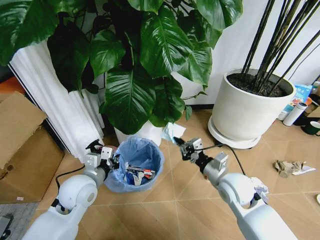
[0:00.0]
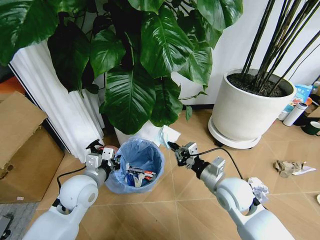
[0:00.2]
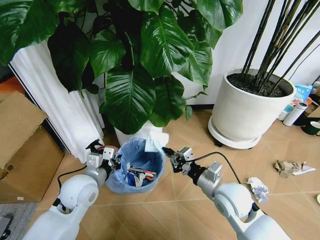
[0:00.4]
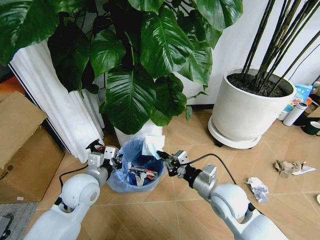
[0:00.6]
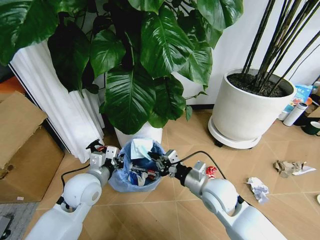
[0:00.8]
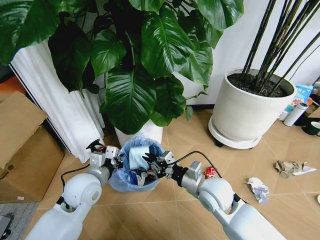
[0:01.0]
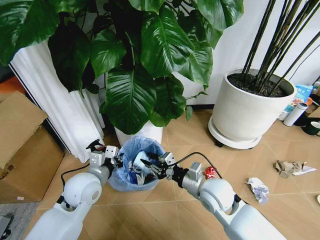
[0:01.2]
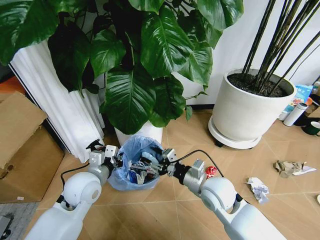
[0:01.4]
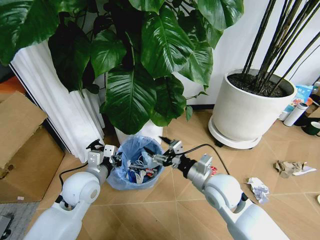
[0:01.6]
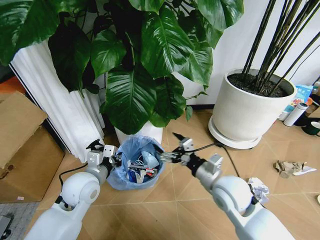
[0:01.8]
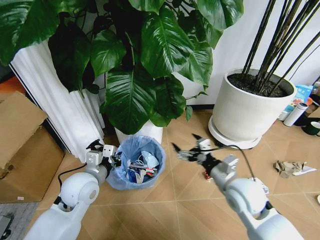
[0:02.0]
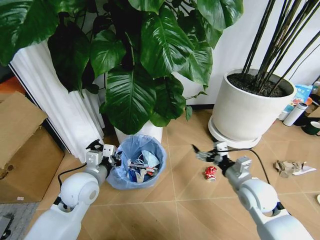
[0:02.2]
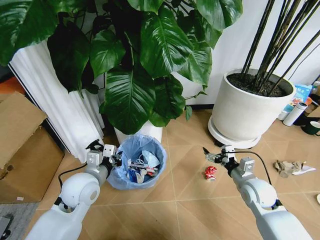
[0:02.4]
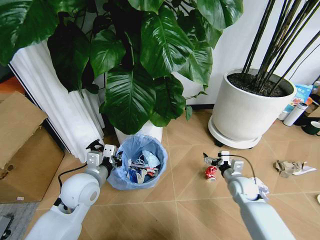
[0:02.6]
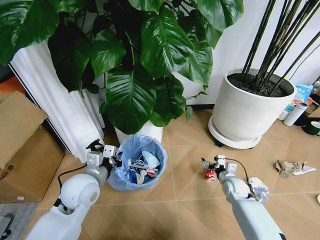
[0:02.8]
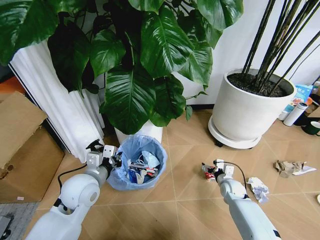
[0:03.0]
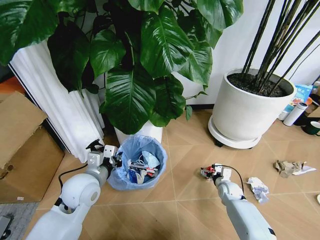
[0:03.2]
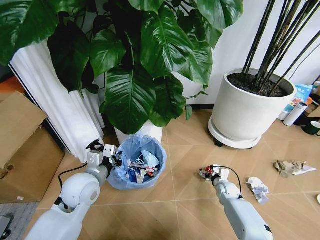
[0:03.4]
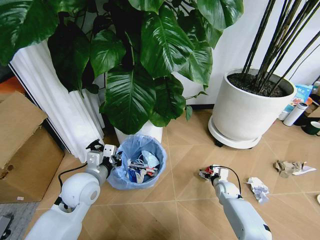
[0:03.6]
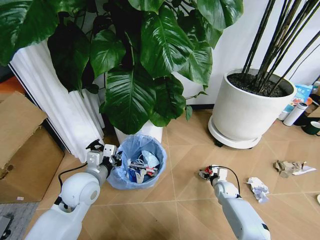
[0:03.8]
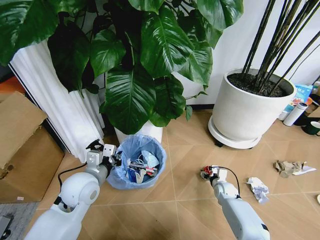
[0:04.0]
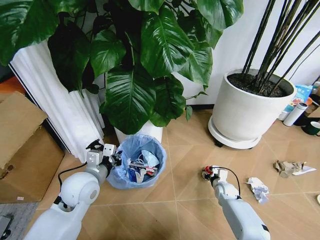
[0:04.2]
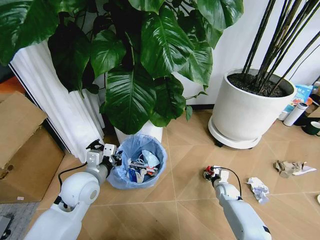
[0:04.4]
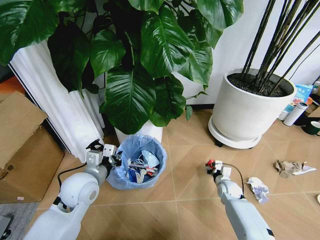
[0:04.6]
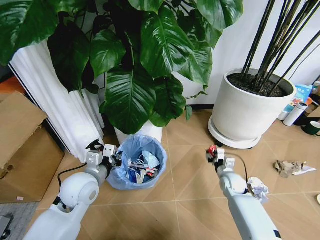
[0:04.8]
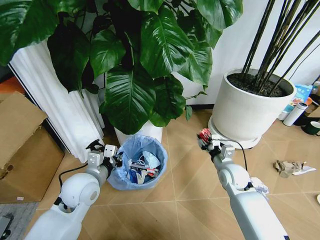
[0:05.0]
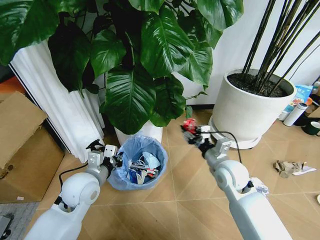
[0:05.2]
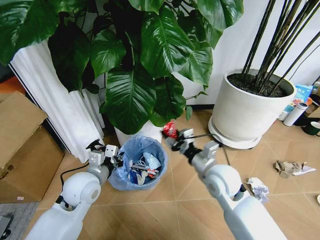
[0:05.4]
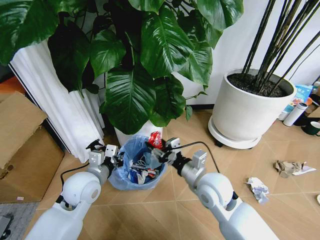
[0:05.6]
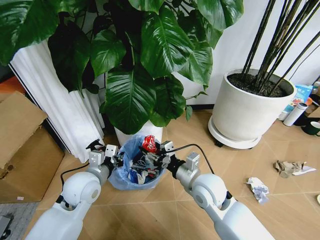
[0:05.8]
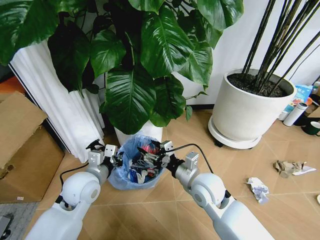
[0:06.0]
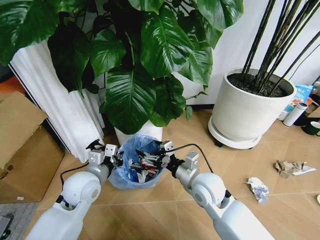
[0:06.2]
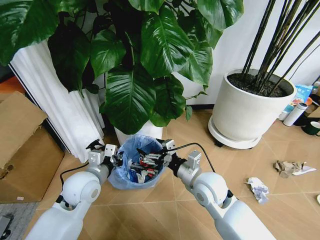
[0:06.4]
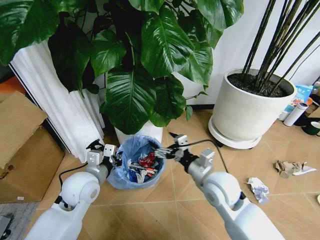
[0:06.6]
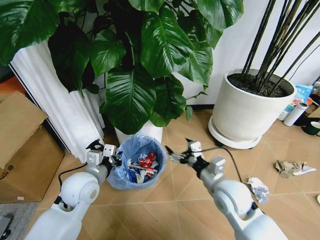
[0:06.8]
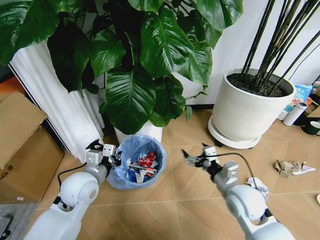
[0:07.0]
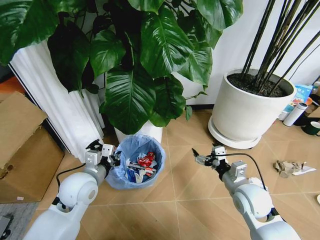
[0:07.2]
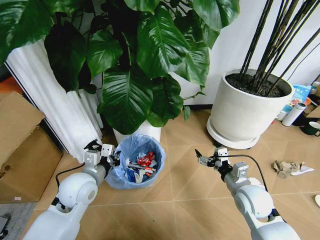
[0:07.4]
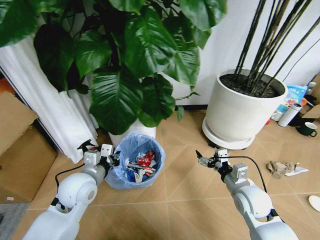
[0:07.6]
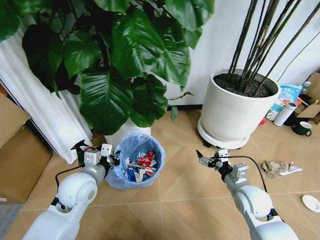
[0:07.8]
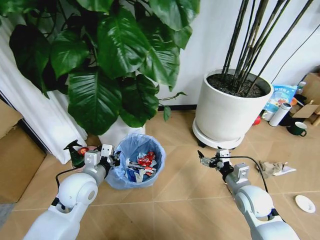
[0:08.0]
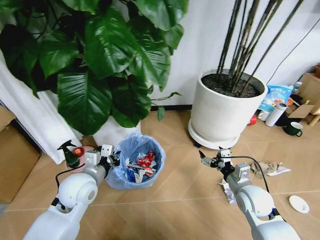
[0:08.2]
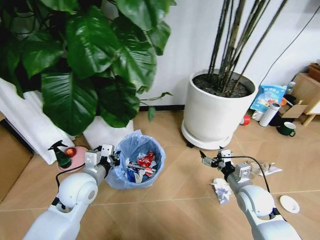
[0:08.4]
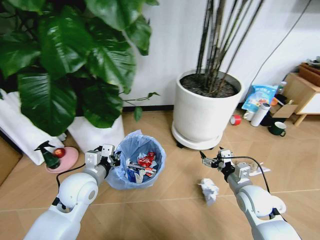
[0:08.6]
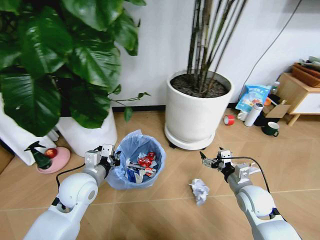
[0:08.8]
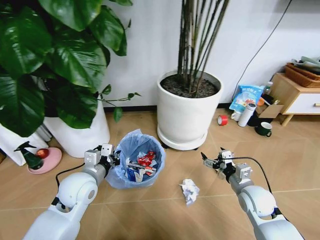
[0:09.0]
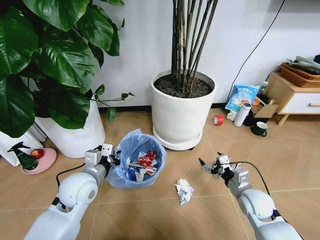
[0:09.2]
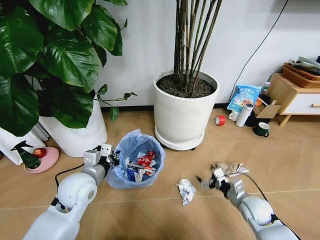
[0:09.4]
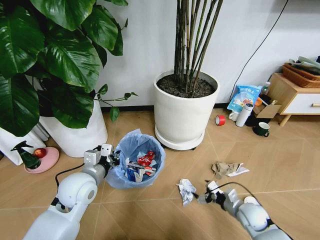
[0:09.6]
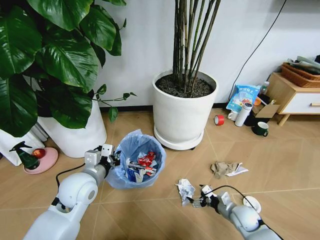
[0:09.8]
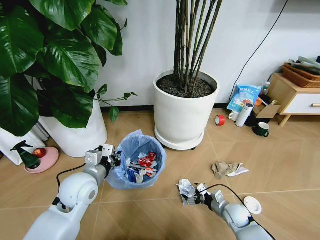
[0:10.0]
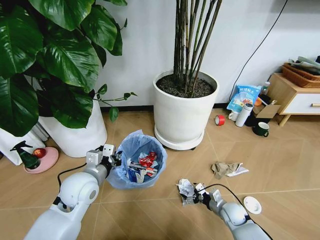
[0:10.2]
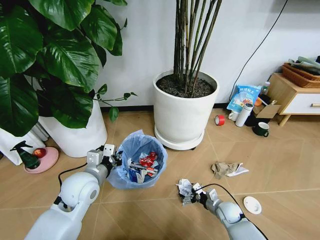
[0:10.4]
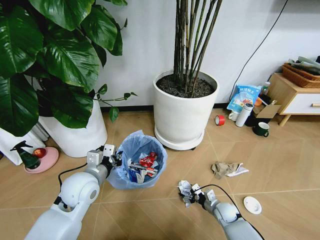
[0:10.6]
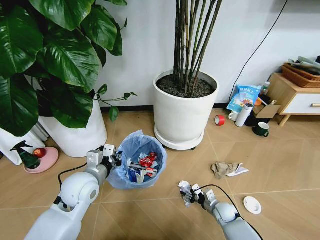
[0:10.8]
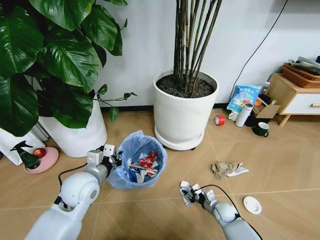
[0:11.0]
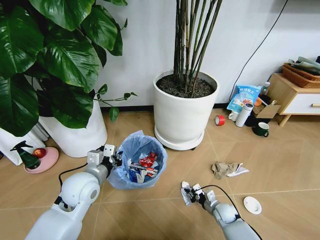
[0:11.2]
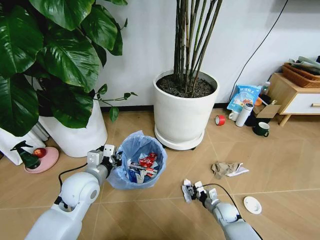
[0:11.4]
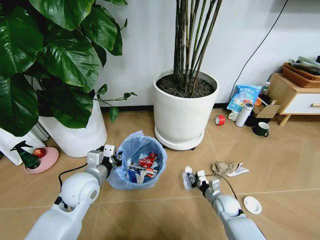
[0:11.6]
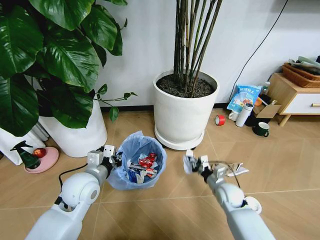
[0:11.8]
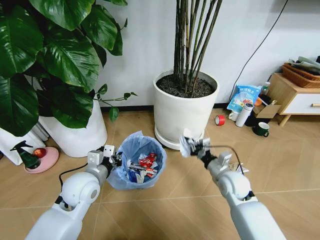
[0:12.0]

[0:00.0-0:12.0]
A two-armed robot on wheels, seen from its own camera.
Task of the whole recording: Pick up the trash bin and place the garbage on the floor into it.
0:00.0 to 0:01.6: The right gripper moves to the left, about 5 cm, and opens.
0:01.6 to 0:03.0: The right gripper is displaced downward and to the right by approximately 30 cm.
0:03.0 to 0:04.4: The right gripper closes its fingers.
0:04.4 to 0:06.0: The right gripper travels upward and to the left by roughly 30 cm.
0:06.0 to 0:07.6: The right gripper goes roughly 15 cm to the right.
0:09.0 to 0:10.4: The right gripper shifts approximately 20 cm downward.
0:10.4 to 0:12.0: The right gripper shifts some 20 cm upward, and closes.

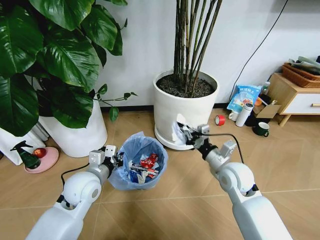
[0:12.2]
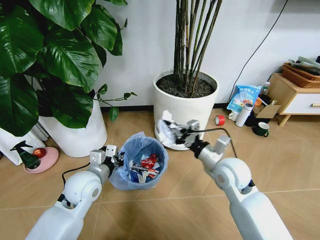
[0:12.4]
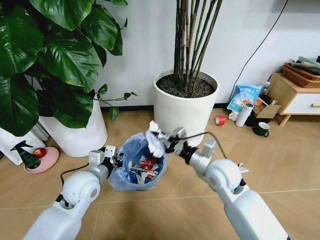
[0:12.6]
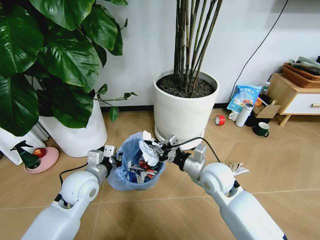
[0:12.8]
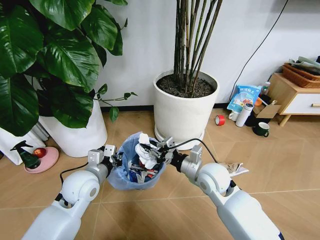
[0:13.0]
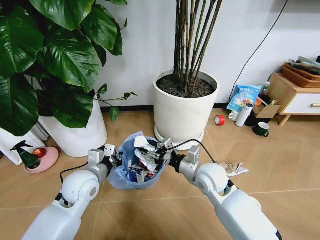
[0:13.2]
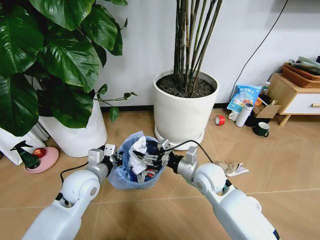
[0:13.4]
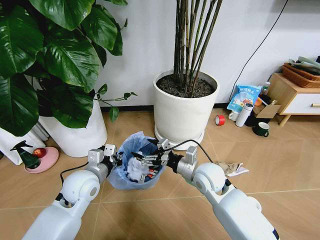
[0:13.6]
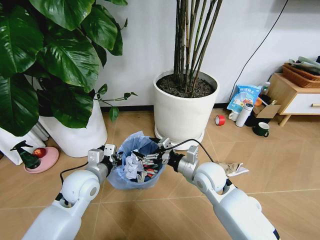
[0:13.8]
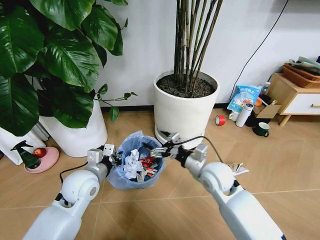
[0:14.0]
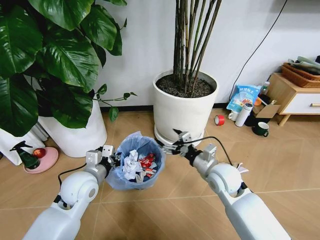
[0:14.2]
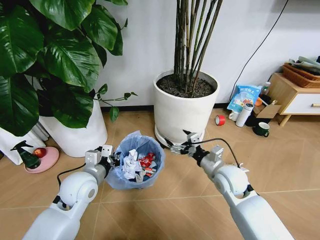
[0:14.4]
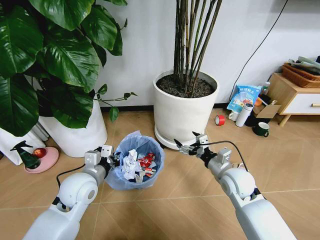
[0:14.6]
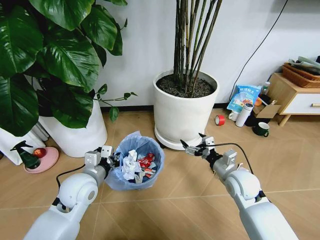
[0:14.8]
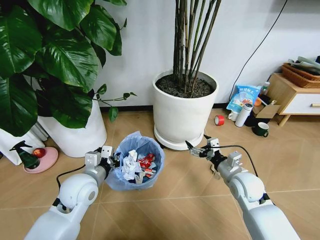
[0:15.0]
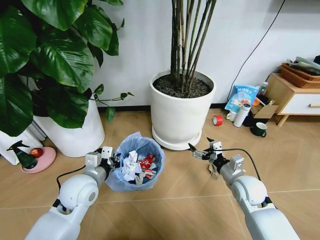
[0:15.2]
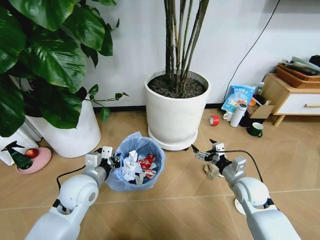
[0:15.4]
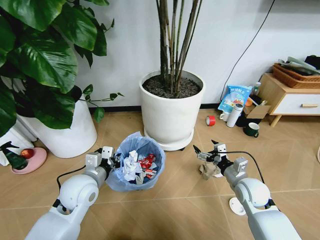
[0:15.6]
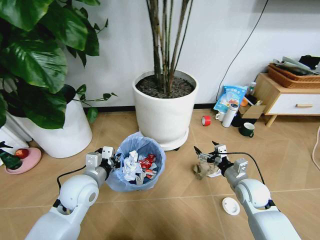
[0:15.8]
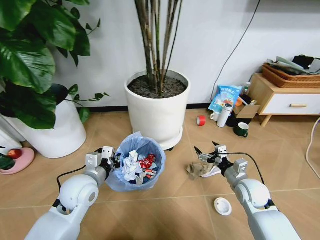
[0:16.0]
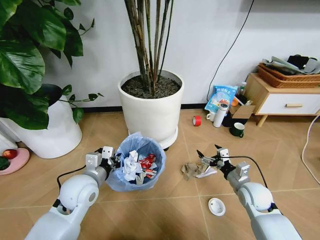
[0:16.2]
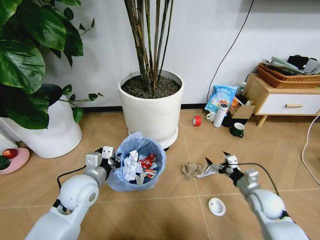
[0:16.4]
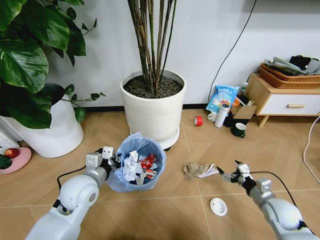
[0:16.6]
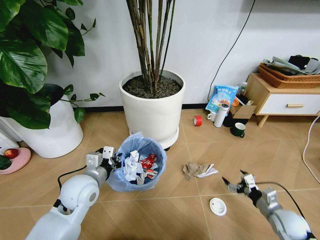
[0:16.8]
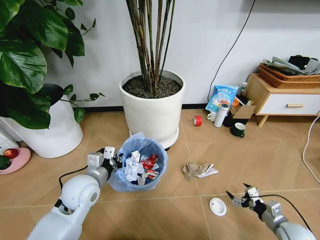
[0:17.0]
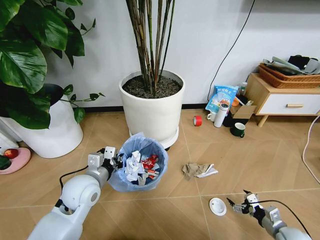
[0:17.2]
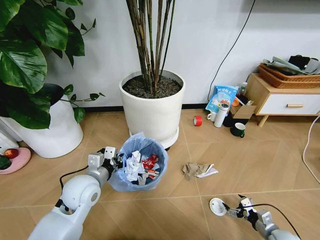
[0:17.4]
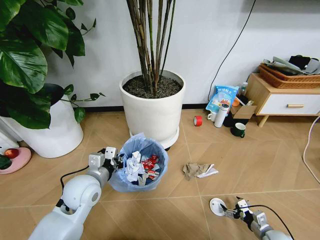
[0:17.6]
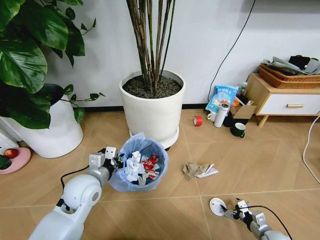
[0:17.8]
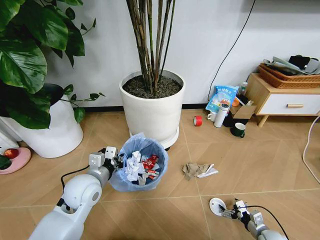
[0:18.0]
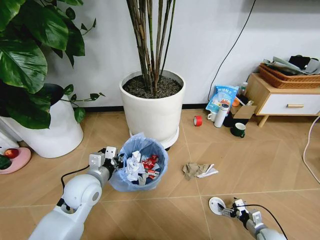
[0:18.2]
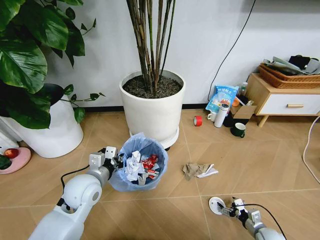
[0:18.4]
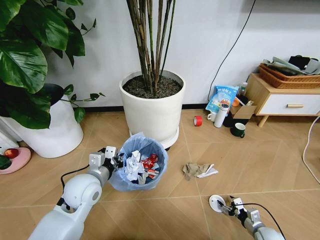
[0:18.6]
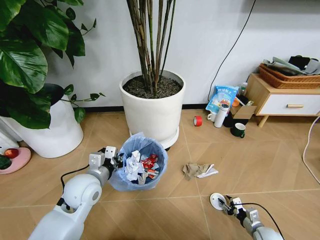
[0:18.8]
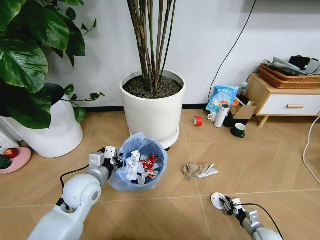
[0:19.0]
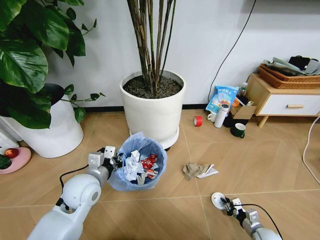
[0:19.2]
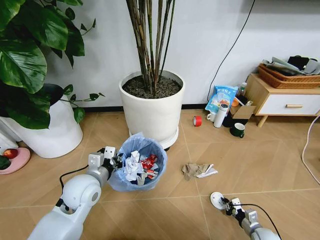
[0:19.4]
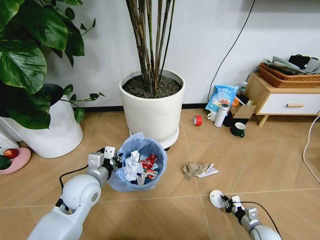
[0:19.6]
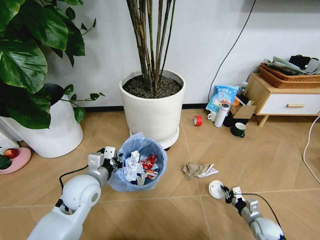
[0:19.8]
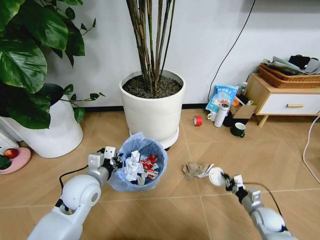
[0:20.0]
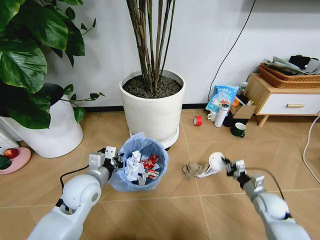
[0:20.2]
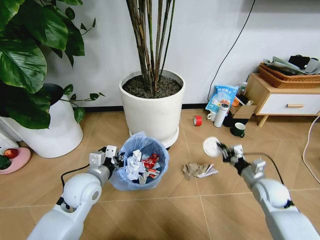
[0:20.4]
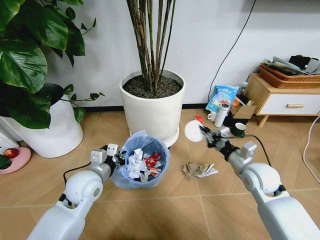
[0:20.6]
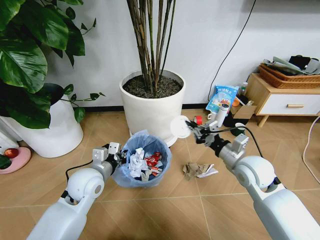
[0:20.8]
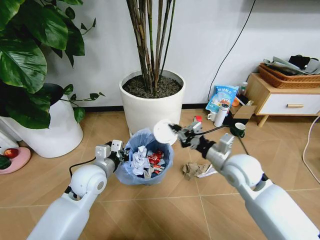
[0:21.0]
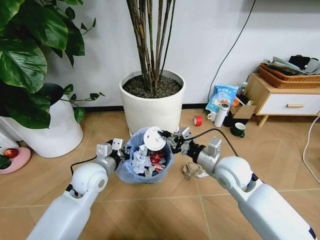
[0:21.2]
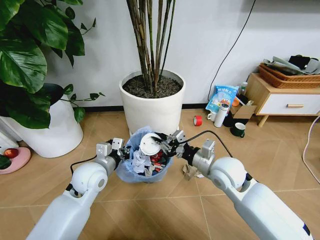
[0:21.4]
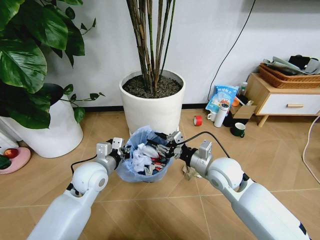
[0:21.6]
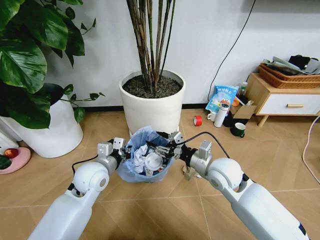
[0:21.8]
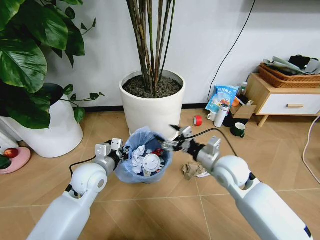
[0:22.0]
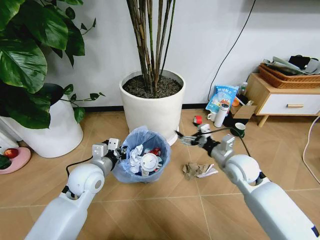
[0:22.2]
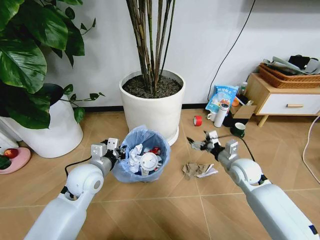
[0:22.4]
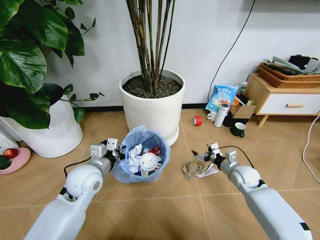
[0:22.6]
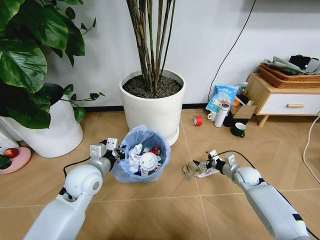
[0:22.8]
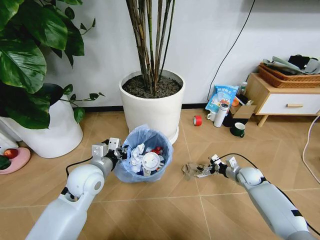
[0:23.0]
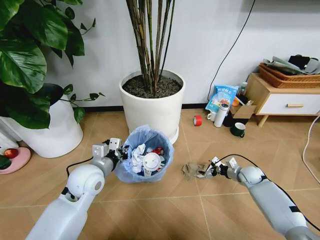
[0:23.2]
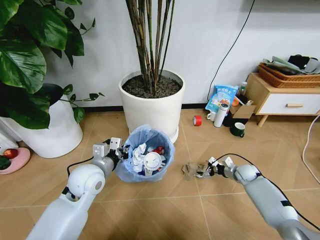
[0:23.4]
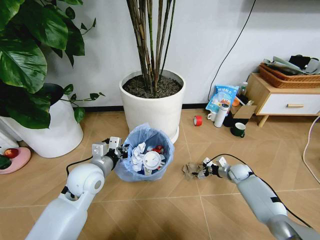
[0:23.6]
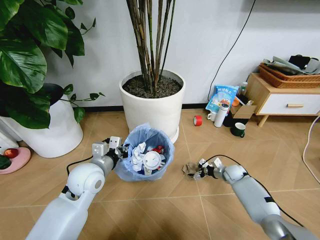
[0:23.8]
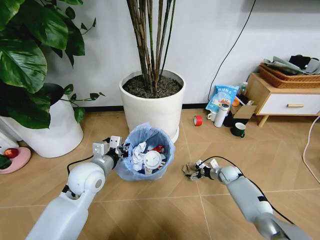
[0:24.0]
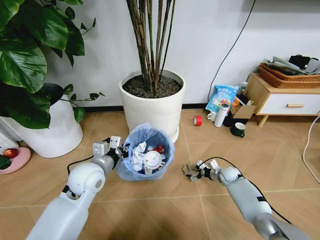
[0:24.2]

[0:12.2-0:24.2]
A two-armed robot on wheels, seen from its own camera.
Task of the whole recording: Pick up the trash bin and place the garbage on the floor into it.
0:12.2 to 0:13.8: The right gripper travels to the left by approximately 5 cm, and opens up.
0:13.8 to 0:15.2: The right gripper moves to the right, roughly 15 cm.
0:15.2 to 0:16.6: The right gripper is displaced to the right, downward and backward by some 15 cm.
0:16.6 to 0:18.2: The right gripper travels downward by some 20 cm.
0:18.2 to 0:19.8: The right gripper changes place by approximately 5 cm, and closes its fingers.
0:19.8 to 0:21.2: The right gripper travels upward and to the left by roughly 35 cm.
0:21.2 to 0:22.6: The right gripper heads downward and to the right, covering roughly 20 cm, and opens.
0:22.6 to 0:24.2: The right gripper goes roughly 15 cm downward and forward.
